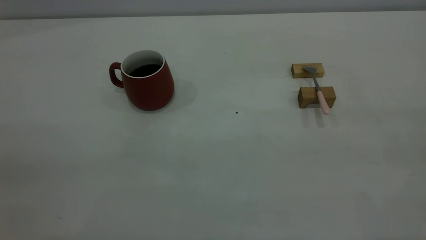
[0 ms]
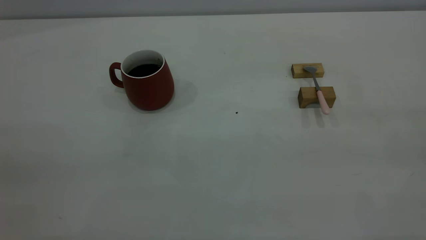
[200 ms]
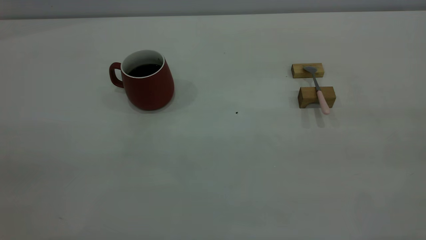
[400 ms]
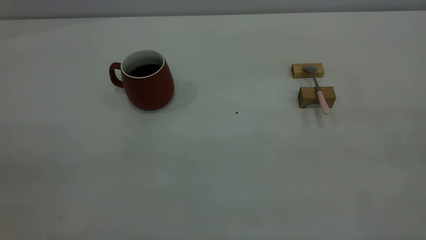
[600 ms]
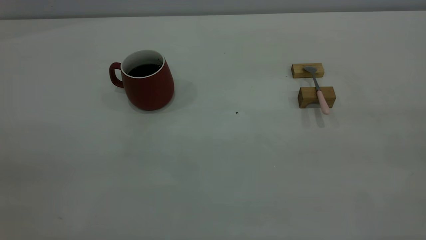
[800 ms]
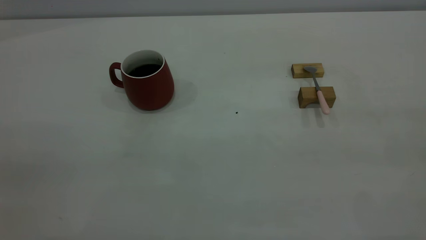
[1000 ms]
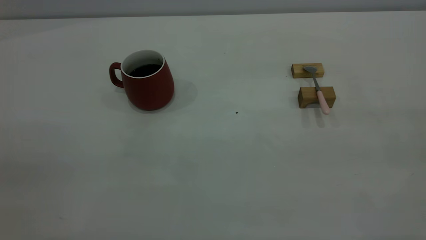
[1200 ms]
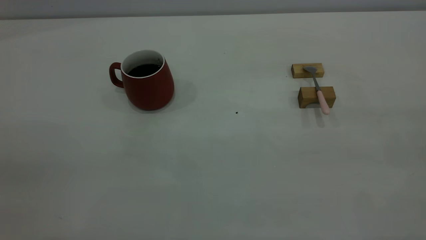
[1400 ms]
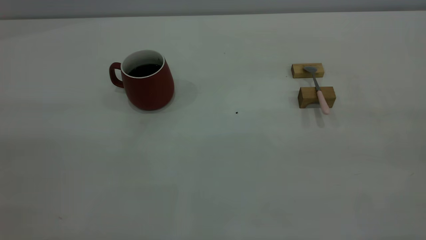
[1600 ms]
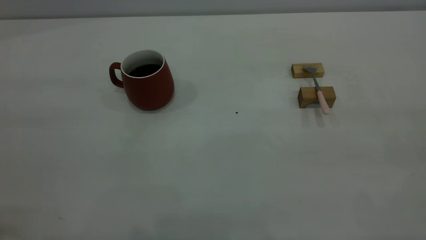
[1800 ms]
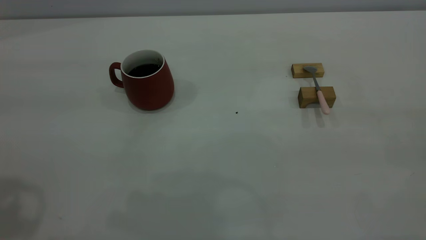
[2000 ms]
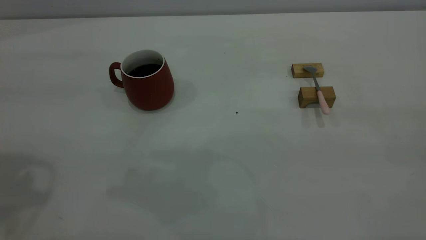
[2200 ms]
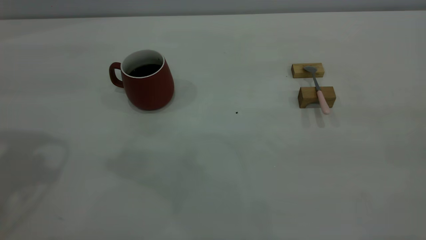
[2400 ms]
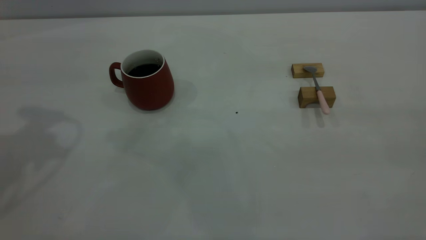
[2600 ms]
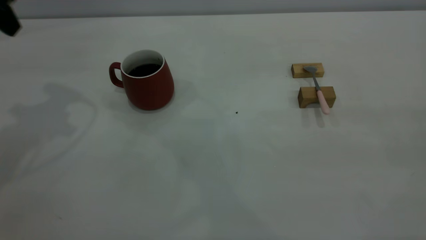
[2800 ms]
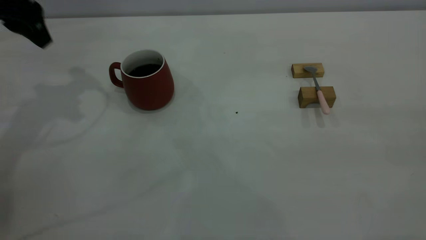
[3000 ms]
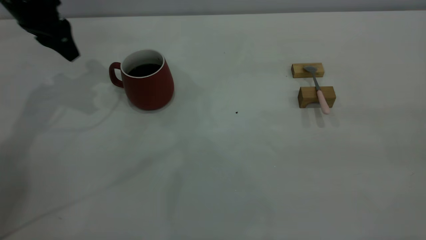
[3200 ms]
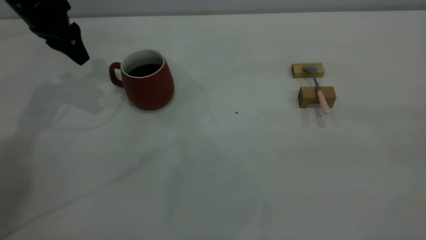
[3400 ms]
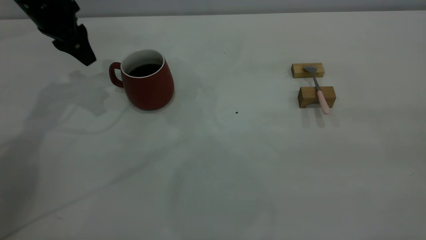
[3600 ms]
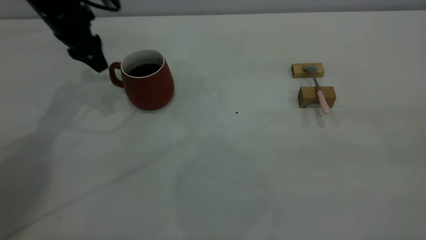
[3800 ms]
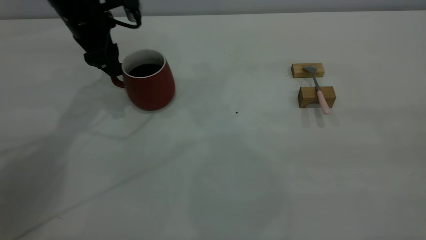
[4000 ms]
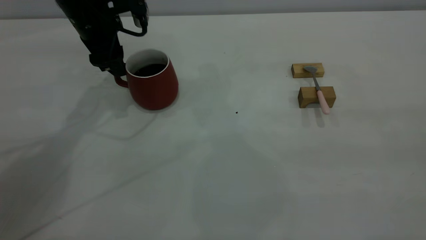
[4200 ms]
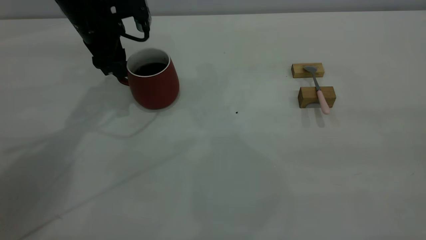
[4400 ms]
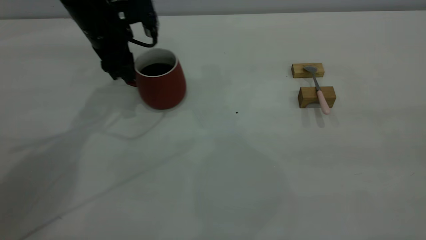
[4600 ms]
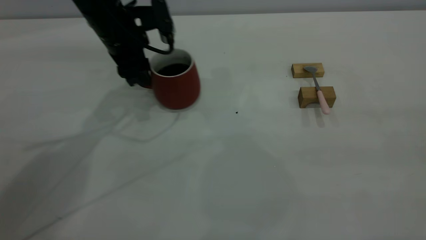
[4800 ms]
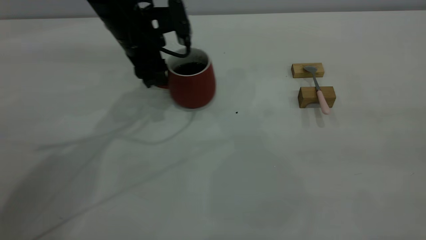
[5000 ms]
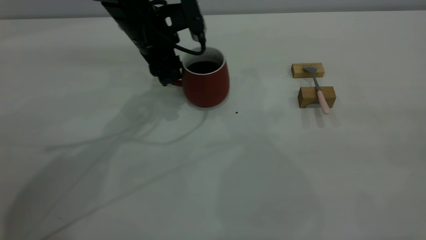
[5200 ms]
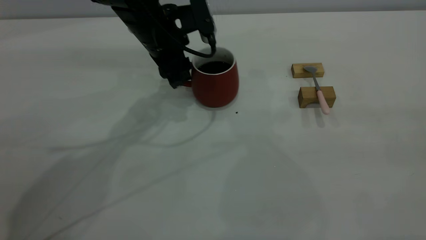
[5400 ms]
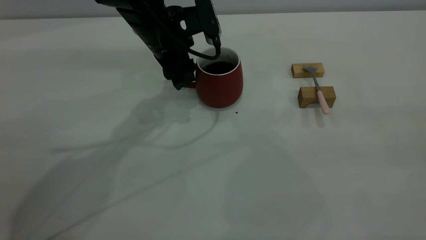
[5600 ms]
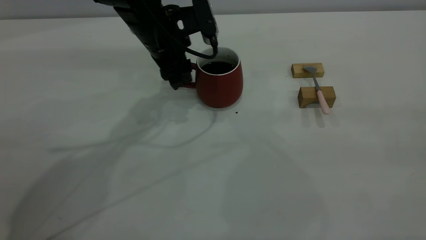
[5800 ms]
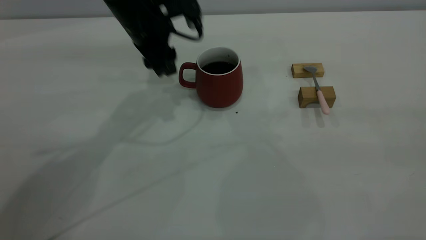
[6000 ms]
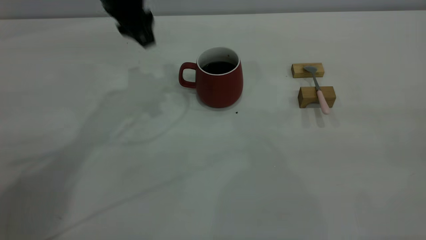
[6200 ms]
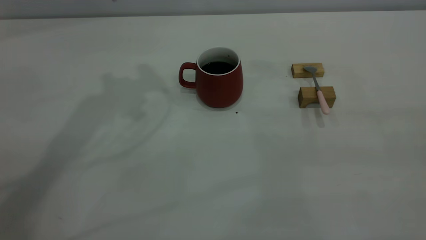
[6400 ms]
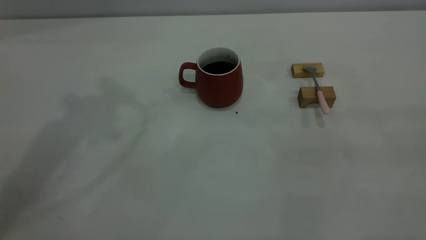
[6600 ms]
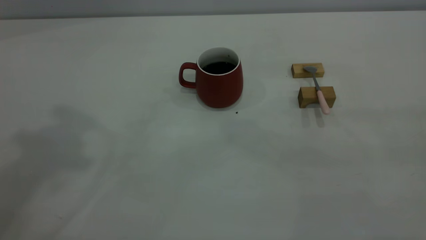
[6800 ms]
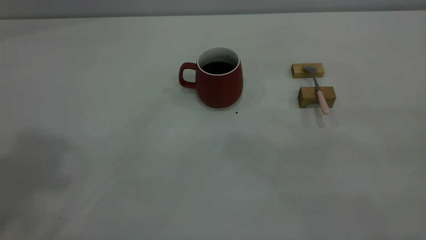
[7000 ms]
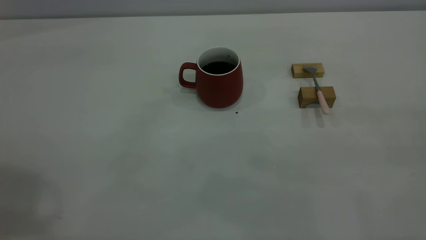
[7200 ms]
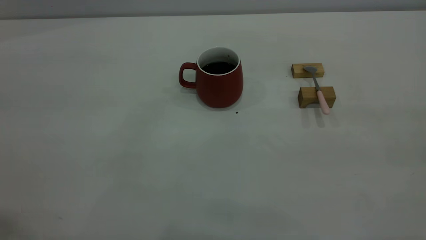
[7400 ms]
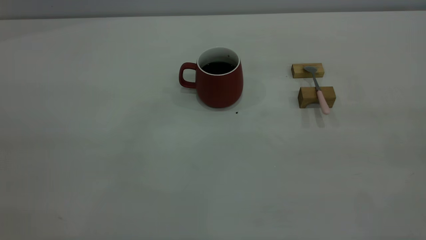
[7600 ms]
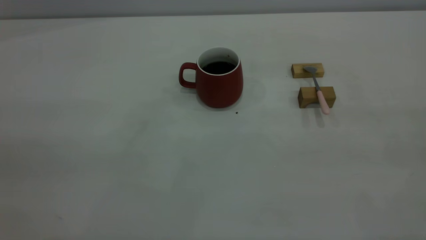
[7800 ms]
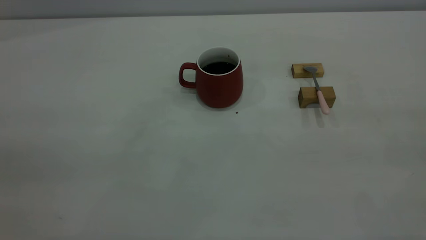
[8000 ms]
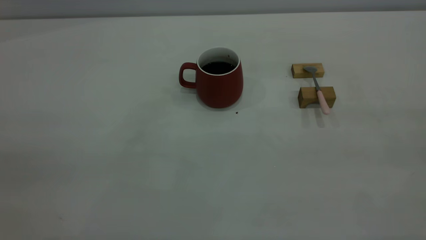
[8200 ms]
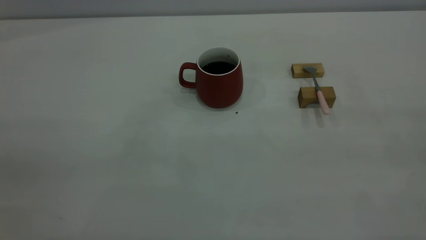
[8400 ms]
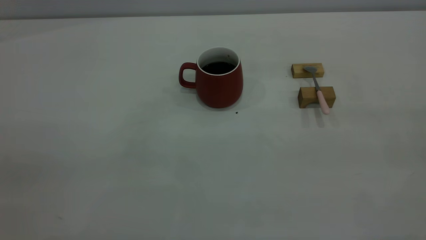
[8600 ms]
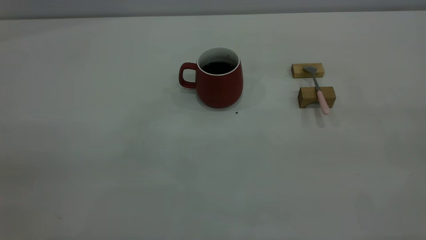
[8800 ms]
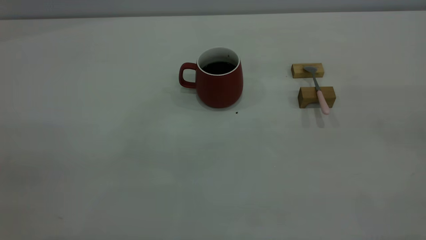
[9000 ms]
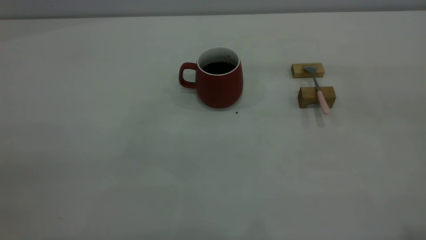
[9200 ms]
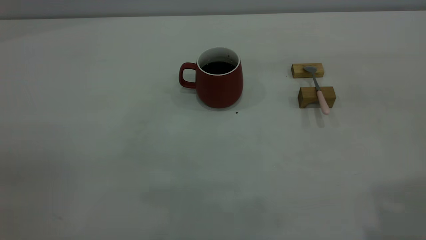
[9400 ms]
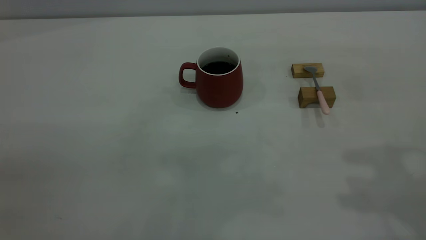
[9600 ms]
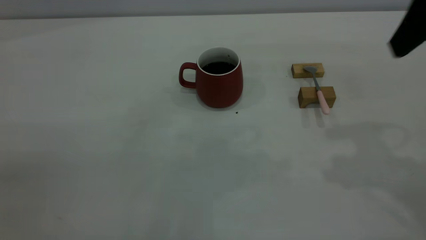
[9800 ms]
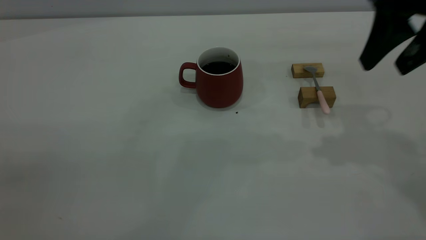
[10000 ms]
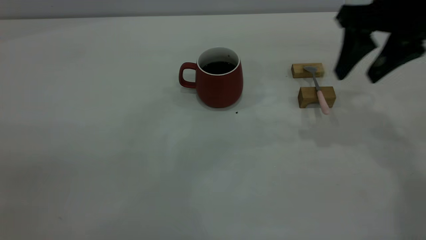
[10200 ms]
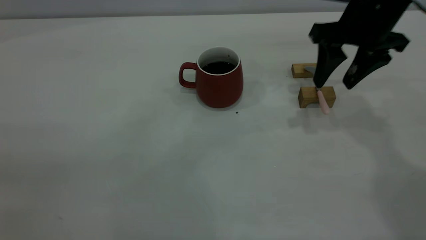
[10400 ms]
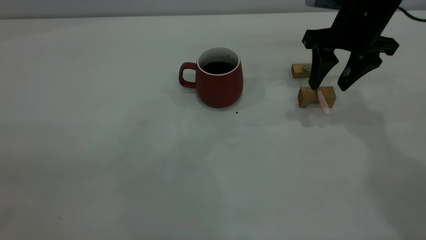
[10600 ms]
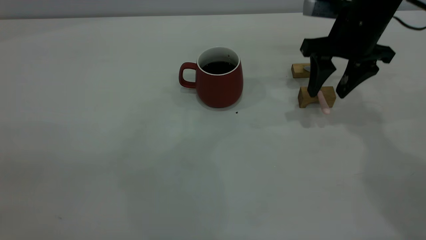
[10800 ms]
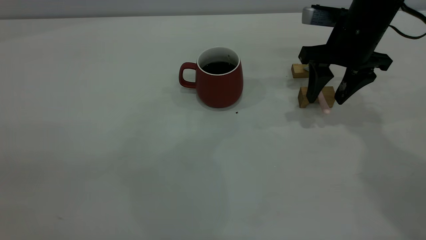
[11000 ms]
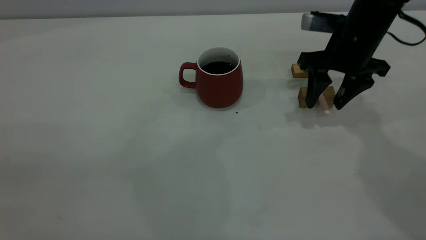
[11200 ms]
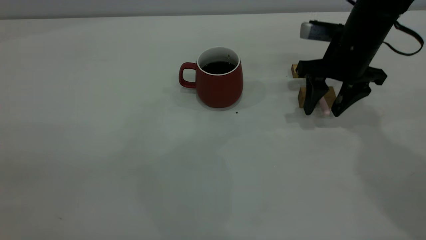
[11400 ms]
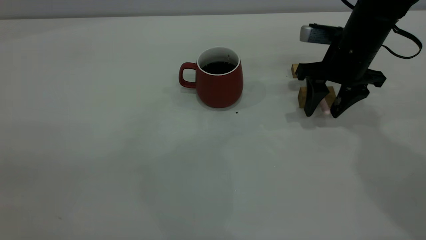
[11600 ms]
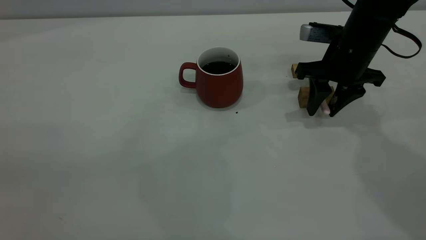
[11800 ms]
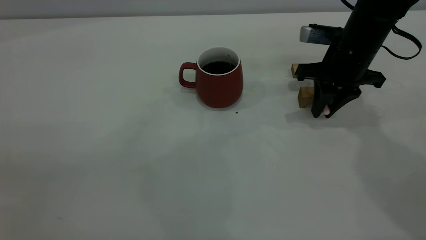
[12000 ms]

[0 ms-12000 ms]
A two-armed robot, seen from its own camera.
Step, 0 ms to 6000 ms: Move the cup with coffee to the center of view.
1600 ms to 3000 ms: The left gripper travels forward and downward by roughly 40 cm.
3000 ms to 4400 ms: The left gripper shifts some 15 cm to the right and downward, and opens up.
4400 ms to 6000 ms: The left gripper is displaced to the right by about 5 cm.
6000 ms to 7600 ms: The left gripper goes approximately 50 cm backward, upward and to the left.
9000 ms to 10400 ms: The right gripper is displaced forward and downward by approximately 40 cm.
10400 ms to 12000 ms: The right gripper goes approximately 5 cm downward, and closes up.

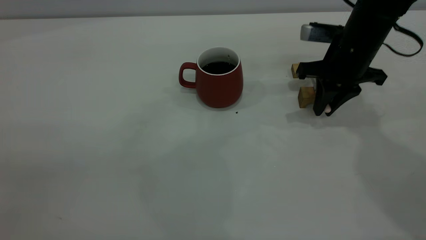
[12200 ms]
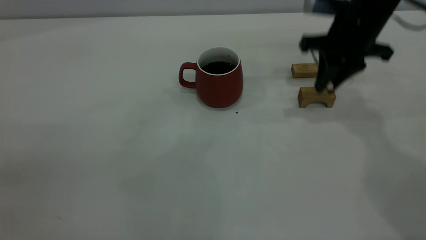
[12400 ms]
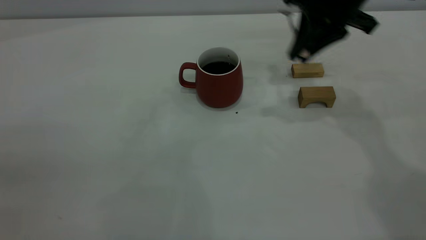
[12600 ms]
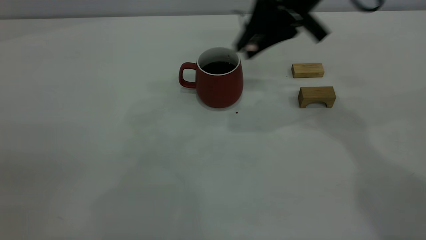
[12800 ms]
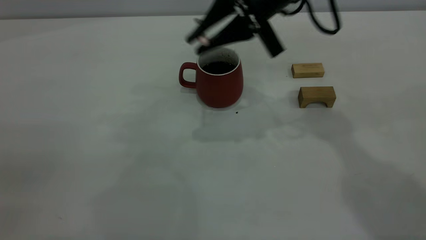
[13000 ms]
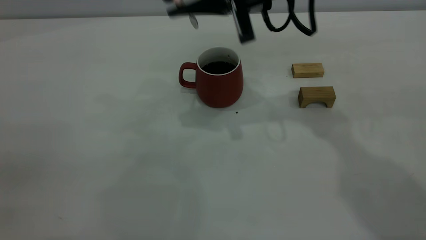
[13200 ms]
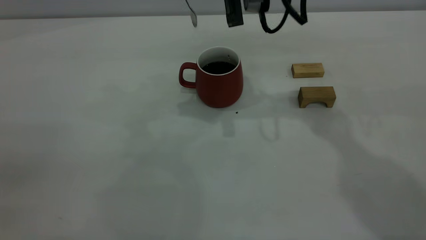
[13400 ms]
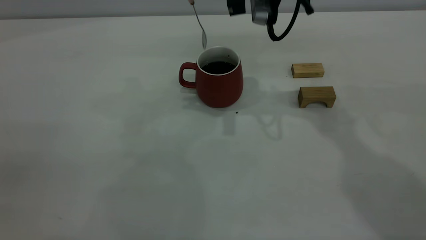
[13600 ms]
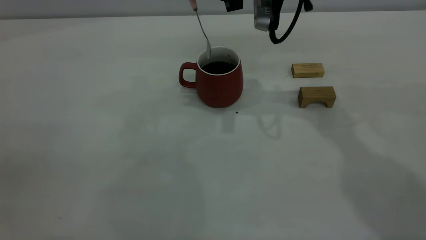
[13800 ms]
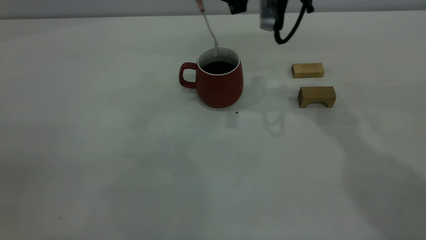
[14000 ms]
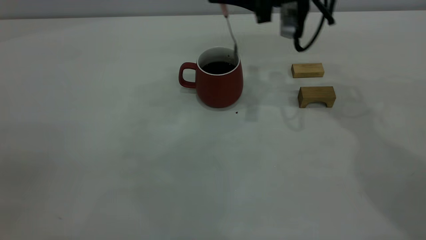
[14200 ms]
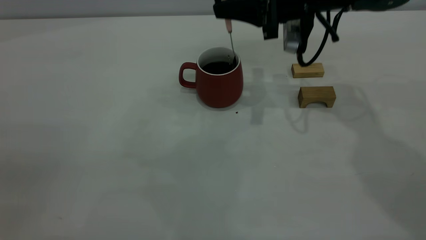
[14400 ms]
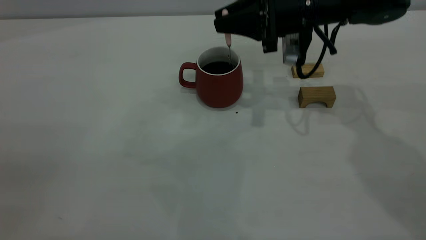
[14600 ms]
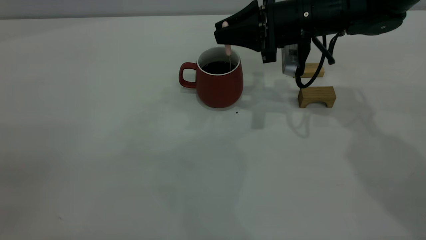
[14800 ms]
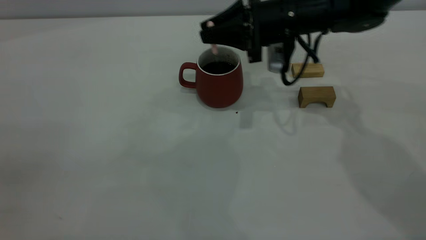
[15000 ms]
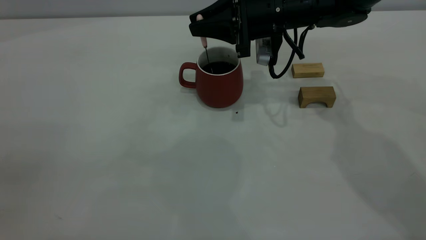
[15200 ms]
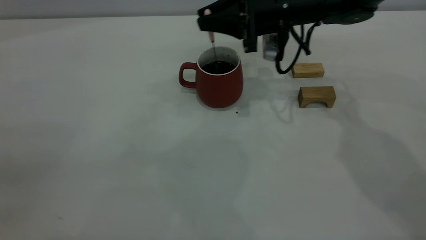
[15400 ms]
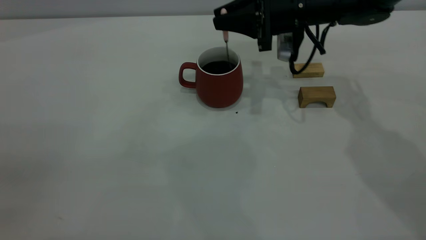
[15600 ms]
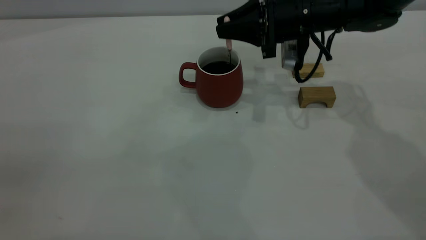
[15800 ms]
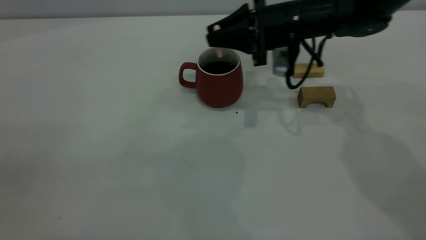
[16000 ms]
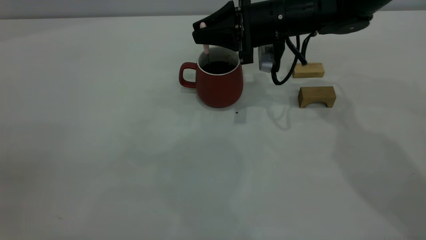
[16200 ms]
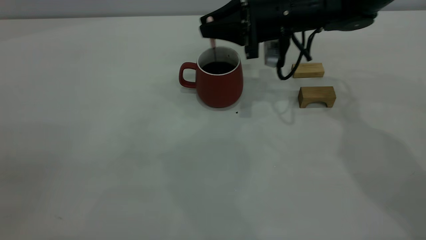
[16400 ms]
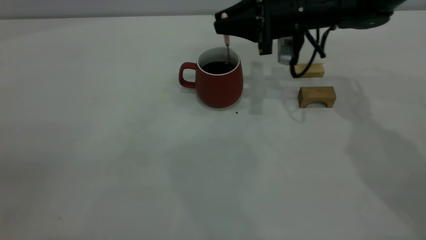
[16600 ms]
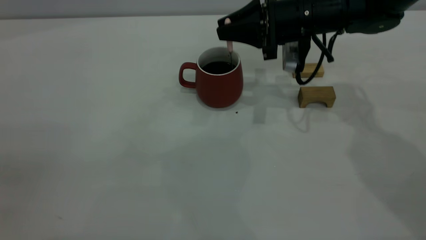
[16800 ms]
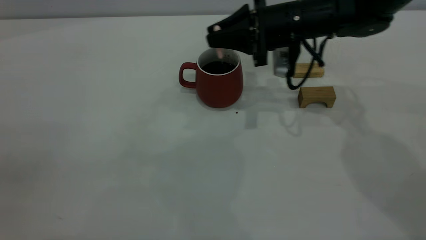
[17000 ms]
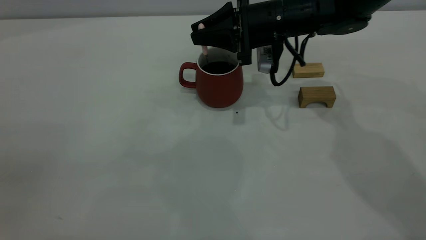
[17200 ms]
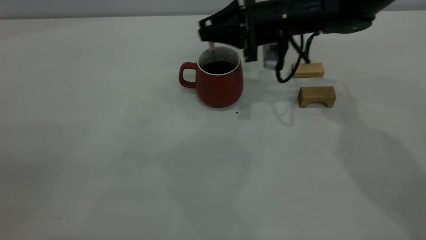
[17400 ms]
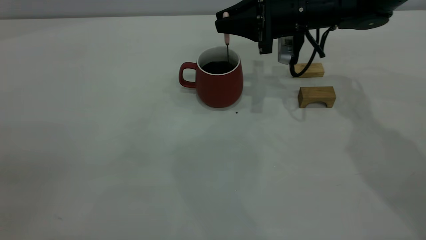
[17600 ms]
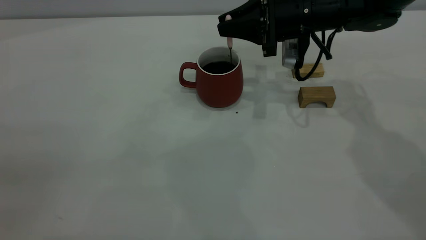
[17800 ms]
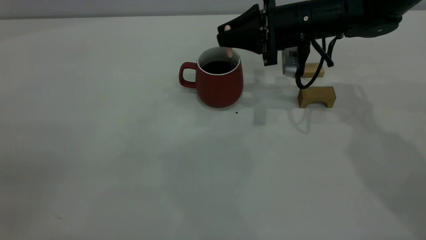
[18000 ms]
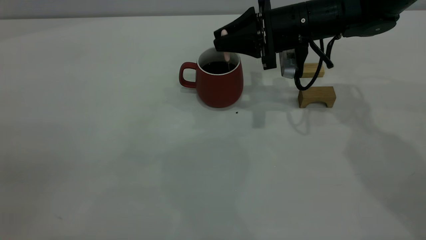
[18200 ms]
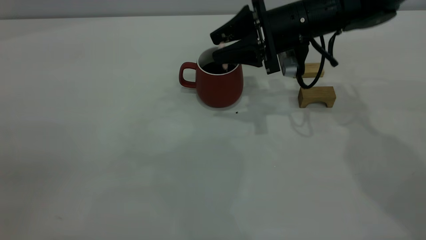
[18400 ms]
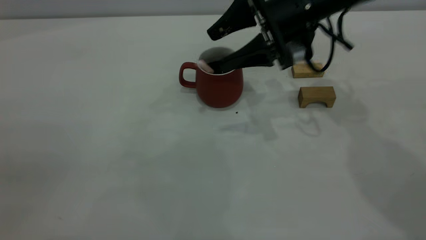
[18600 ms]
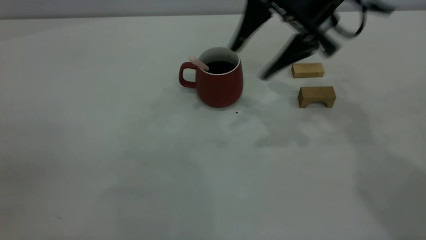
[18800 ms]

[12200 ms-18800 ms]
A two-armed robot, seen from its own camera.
Step, 12600 ms to 18600 ms: Stir the coffee in the cup.
12200 ms to 13800 ms: The right gripper moves to the left and upward, approximately 15 cm.
13800 ms to 15400 ms: The right gripper heads downward, covering about 10 cm.
15400 ms to 17200 ms: The grippers stay close to where they were, moving slightly.
17200 ms to 18800 ms: The right gripper moves upward and backward, some 10 cm, and opens its fingers.
